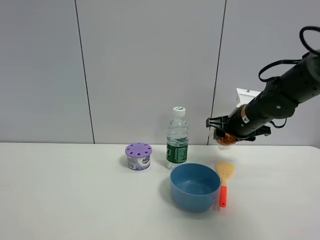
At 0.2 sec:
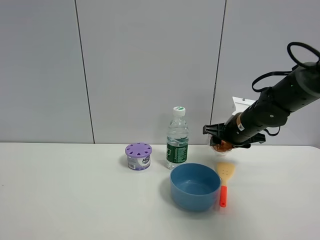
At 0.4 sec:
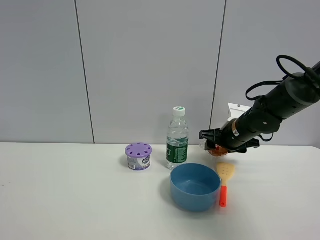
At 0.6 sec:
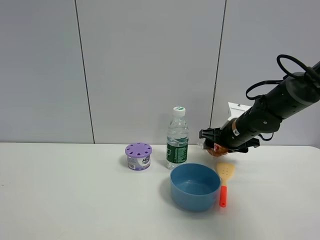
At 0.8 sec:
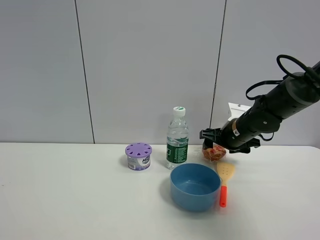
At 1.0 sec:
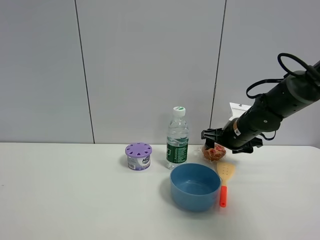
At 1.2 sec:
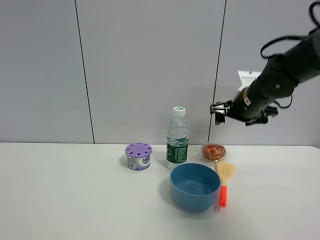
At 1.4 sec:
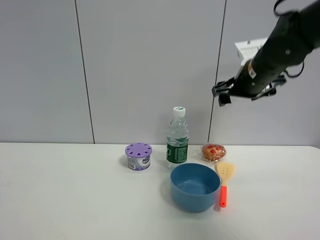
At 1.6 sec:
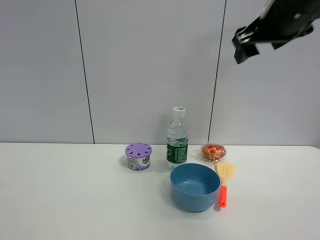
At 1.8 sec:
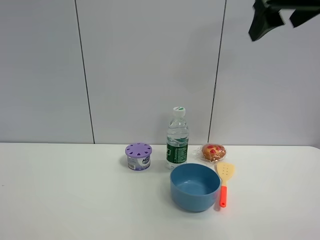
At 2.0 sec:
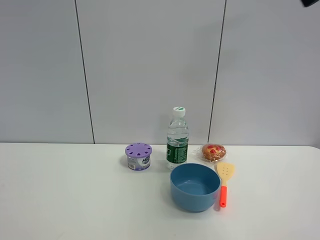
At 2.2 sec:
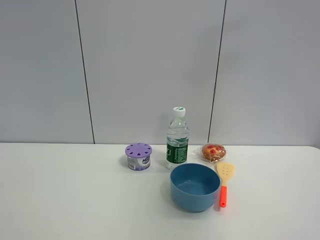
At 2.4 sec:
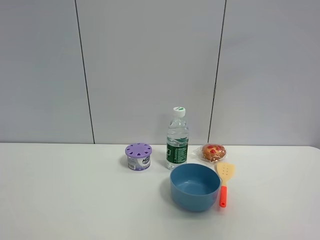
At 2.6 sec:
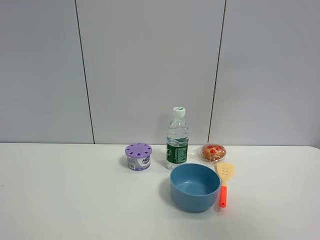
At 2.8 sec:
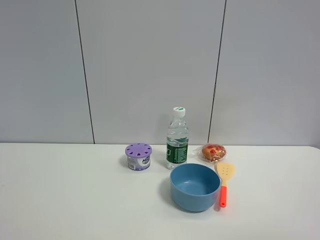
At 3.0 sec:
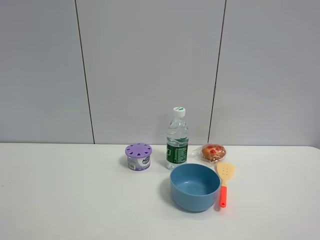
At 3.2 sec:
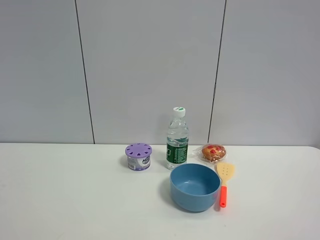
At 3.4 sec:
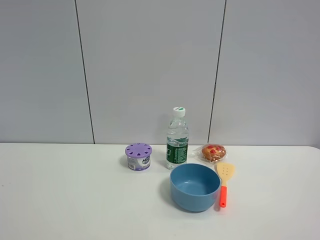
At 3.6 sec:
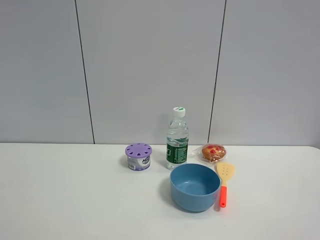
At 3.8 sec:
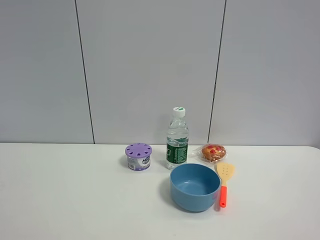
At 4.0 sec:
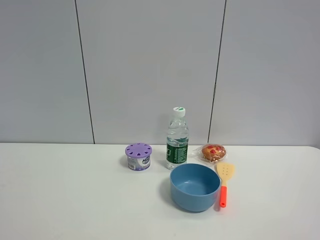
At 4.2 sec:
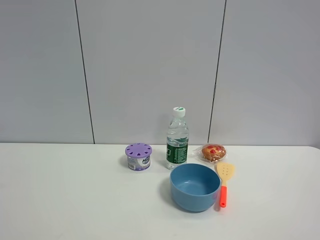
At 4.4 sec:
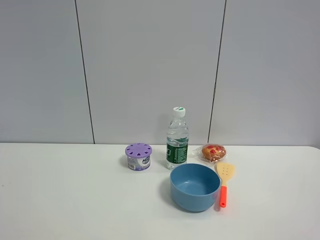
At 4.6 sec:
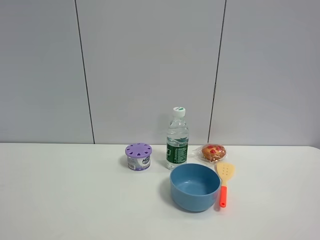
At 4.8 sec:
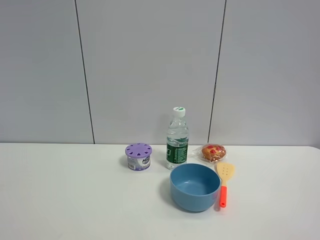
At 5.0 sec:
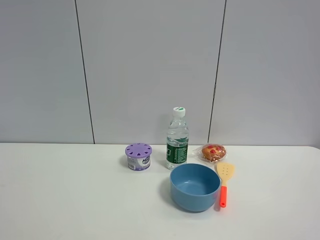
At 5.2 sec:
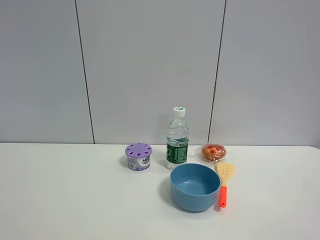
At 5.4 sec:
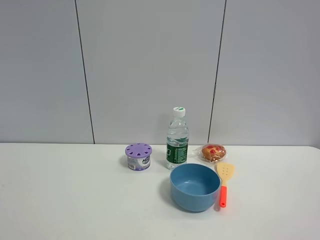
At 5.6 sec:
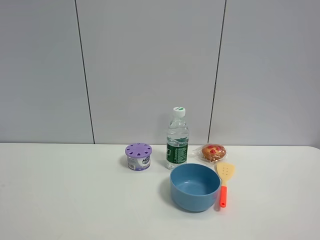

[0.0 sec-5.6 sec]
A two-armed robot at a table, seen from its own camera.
Task of the whole recording: the gripper move the object.
0.0 sec to 1.4 sec: The right gripper travels upward by approximately 10 cm, and opens up.
1.4 sec to 2.8 sec: The right gripper shifts approximately 40 cm backward.
4.2 sec to 5.6 sec: Both grippers stay put.

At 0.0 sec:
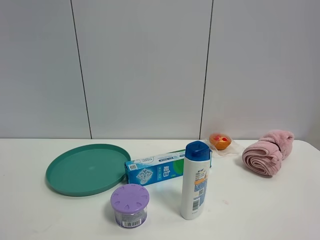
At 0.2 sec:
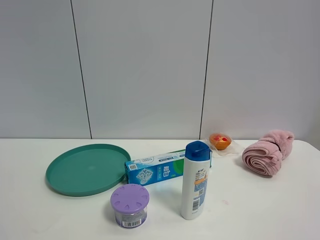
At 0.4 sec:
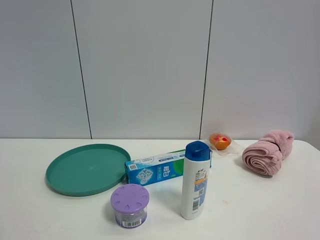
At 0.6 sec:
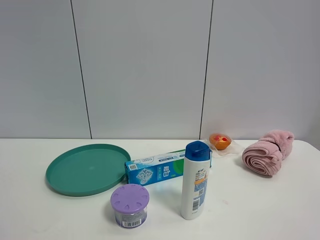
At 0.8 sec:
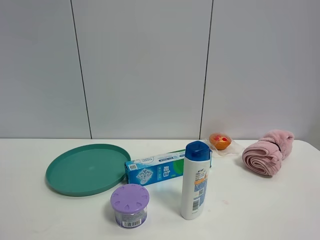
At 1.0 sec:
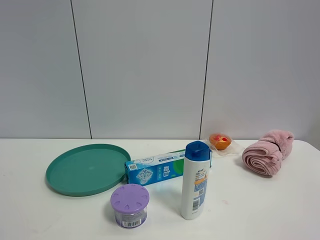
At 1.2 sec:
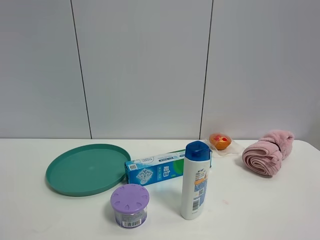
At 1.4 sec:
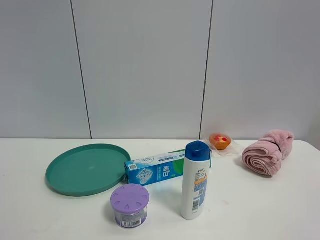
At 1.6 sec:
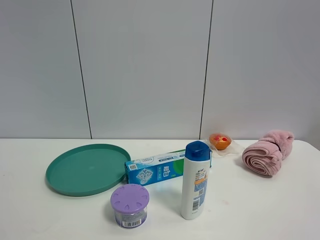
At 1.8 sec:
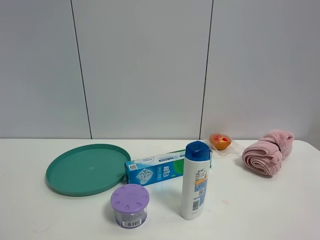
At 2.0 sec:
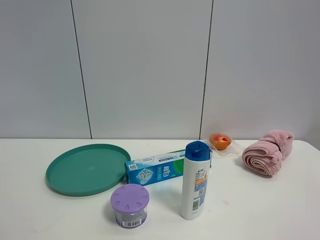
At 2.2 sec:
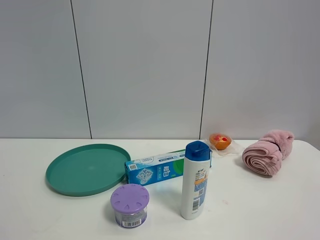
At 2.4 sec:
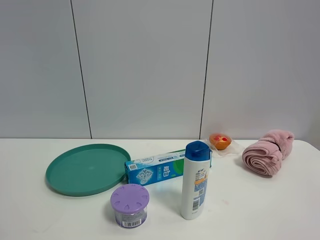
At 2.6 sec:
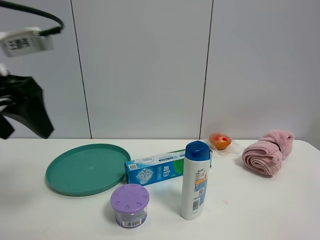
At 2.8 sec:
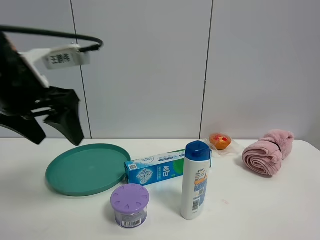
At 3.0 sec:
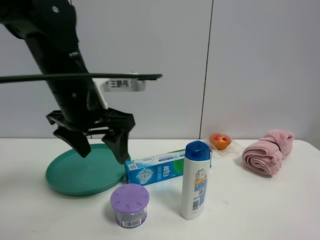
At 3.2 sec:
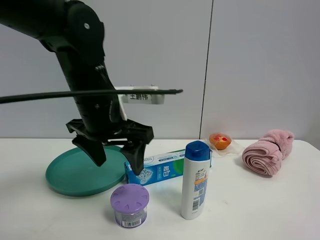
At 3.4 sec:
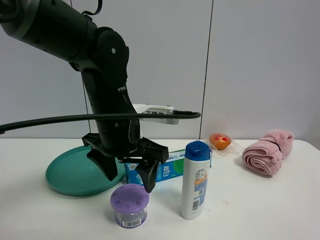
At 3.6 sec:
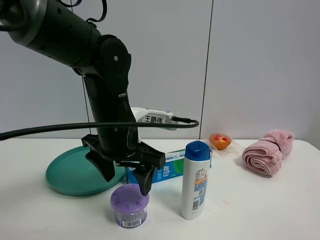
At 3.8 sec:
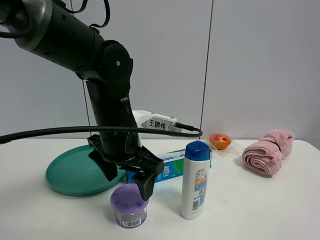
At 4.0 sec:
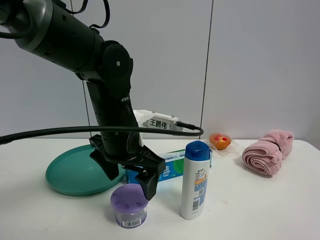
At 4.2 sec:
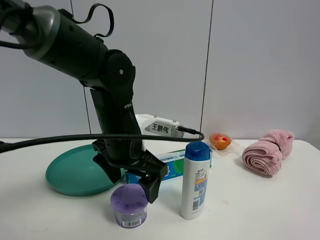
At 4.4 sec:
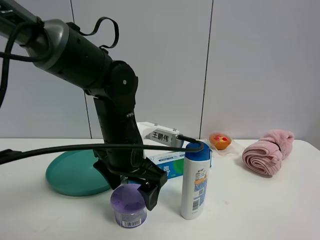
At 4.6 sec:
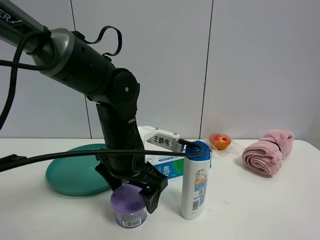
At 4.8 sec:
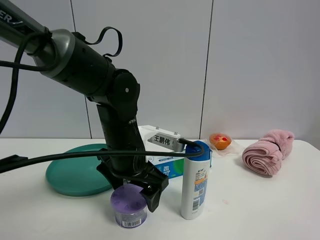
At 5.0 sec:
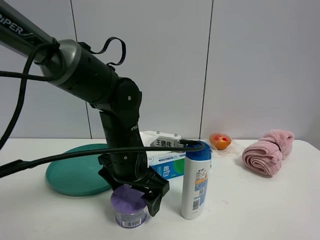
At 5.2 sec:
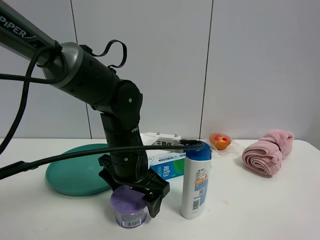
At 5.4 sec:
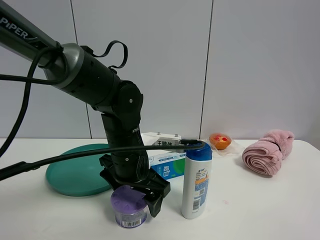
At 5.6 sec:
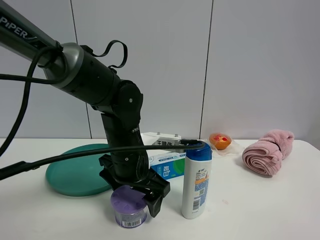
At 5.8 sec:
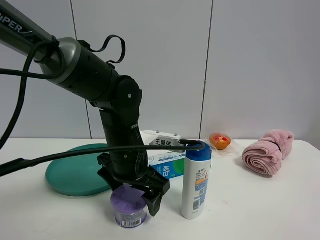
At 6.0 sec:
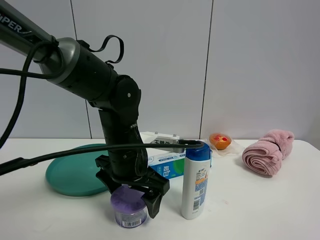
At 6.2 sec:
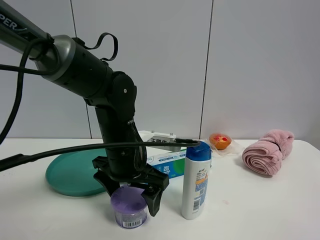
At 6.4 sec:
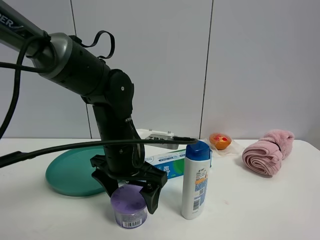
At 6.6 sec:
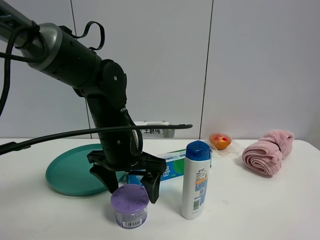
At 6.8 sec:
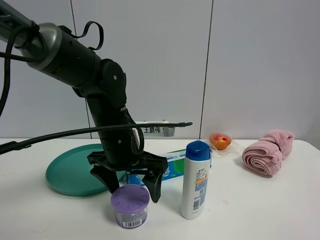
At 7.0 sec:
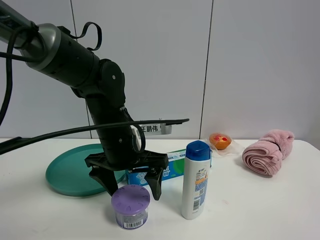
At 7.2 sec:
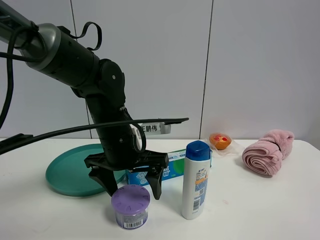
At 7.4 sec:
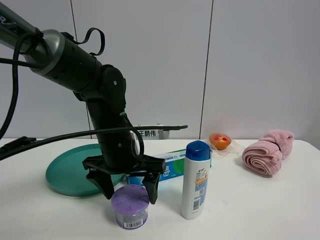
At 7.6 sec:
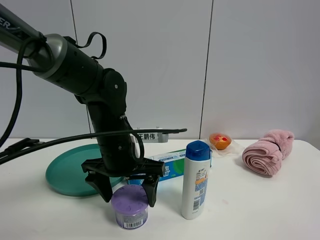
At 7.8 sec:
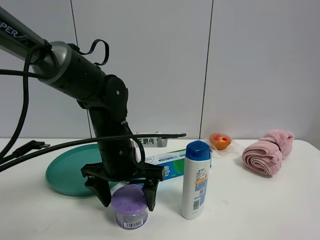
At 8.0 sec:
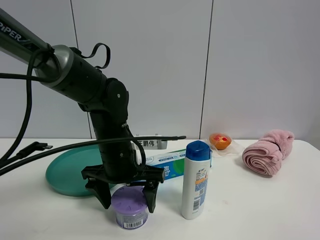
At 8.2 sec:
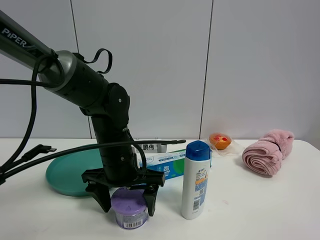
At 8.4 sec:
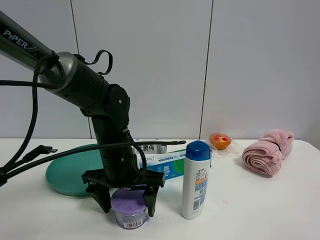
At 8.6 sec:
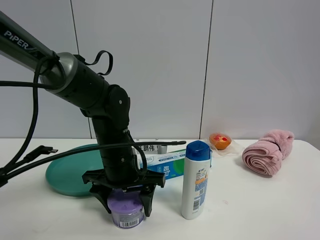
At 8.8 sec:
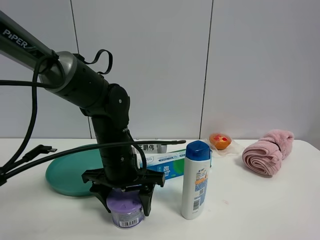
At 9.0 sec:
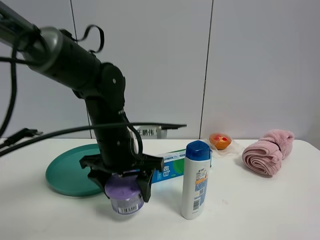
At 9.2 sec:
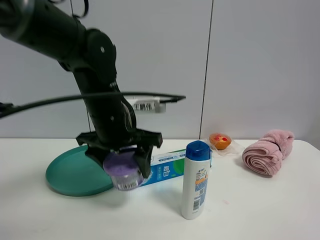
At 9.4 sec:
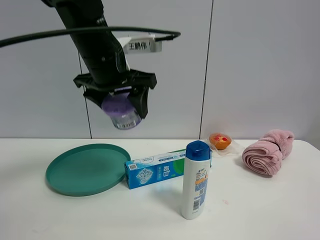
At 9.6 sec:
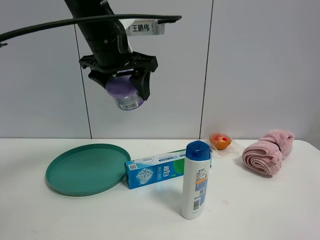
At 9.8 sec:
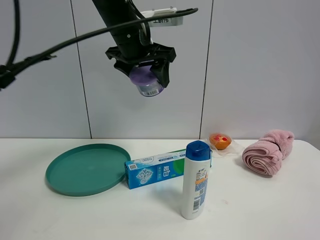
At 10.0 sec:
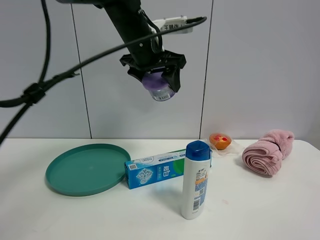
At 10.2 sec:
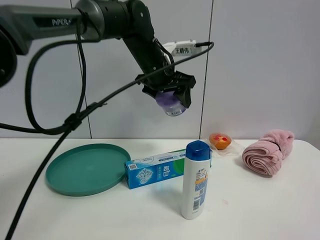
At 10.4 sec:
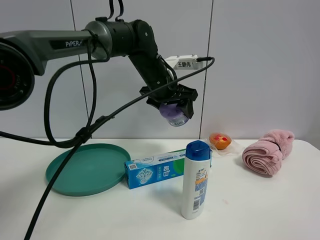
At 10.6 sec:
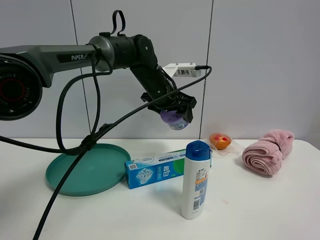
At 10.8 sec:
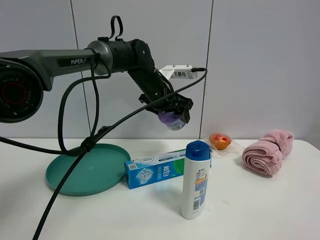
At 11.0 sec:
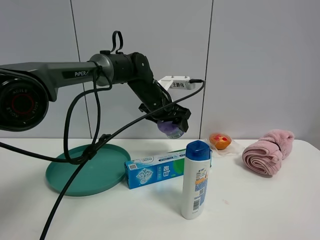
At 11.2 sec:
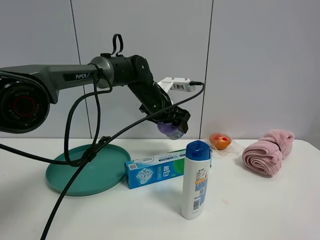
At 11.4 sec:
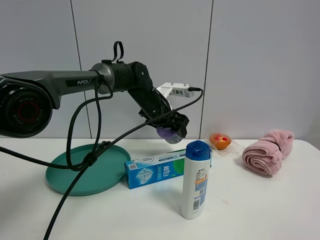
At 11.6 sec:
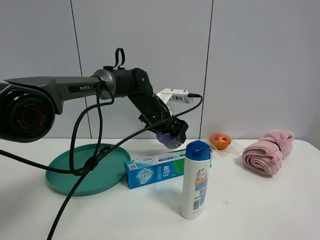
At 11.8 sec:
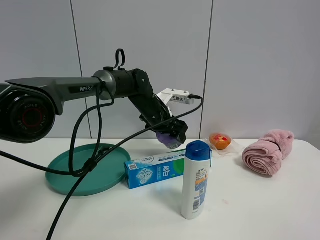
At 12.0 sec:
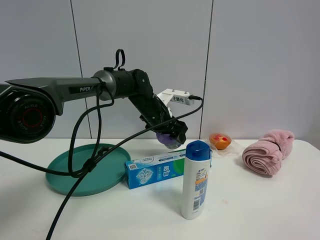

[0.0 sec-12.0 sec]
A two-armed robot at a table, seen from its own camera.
Task of the whole recording: the gripper move the object.
Step, 0.0 sec to 8.6 sec: Grasp the Incense box with the left gripper.
1.6 sec to 3.0 sec: The left gripper goes about 35 cm forward and to the right.
3.0 sec to 4.4 sec: The left gripper goes some 10 cm downward and to the right, and opens.
4.4 sec to 6.0 sec: The grippers make only small movements.
6.0 sec to 7.6 sec: The grippers stay close to where they were, moving slightly.
7.6 sec to 9.0 sec: The left gripper closes.
9.0 sec to 10.4 sec: The left gripper shifts roughly 20 cm forward, upward and to the right.
10.4 sec to 12.0 sec: The left gripper goes approximately 10 cm downward.

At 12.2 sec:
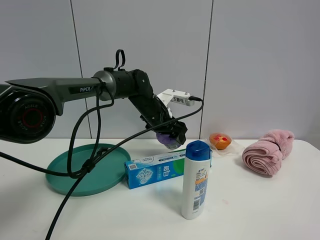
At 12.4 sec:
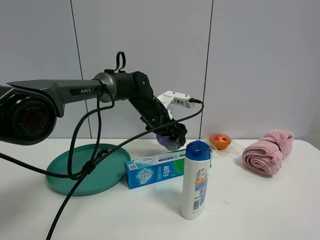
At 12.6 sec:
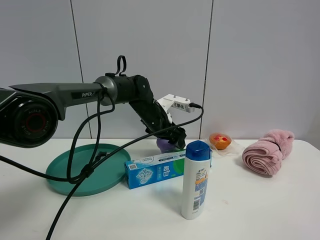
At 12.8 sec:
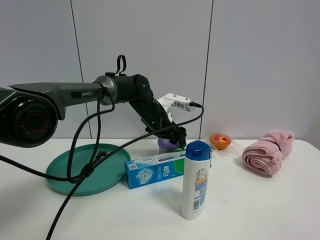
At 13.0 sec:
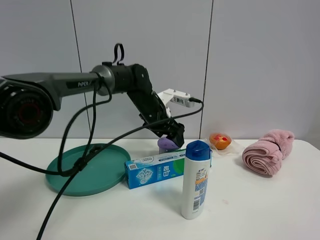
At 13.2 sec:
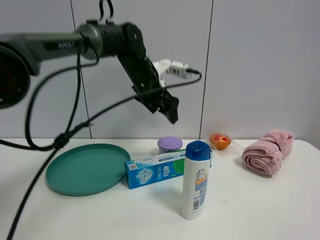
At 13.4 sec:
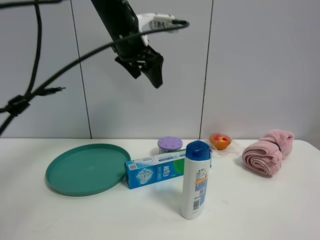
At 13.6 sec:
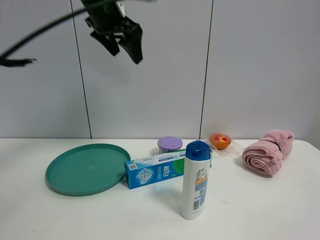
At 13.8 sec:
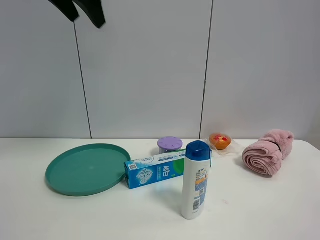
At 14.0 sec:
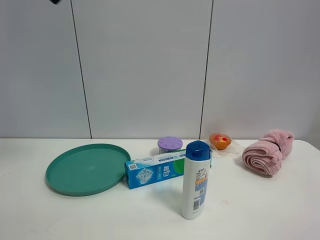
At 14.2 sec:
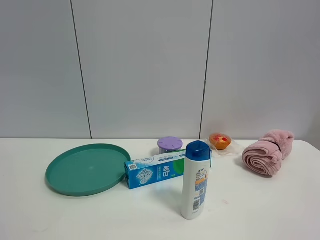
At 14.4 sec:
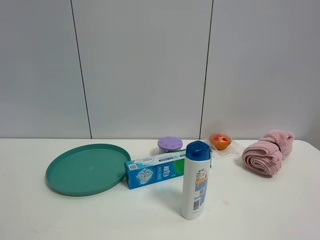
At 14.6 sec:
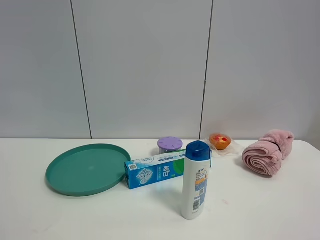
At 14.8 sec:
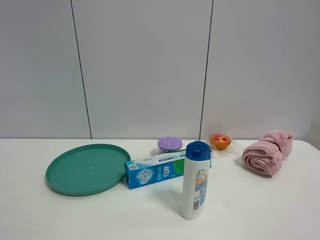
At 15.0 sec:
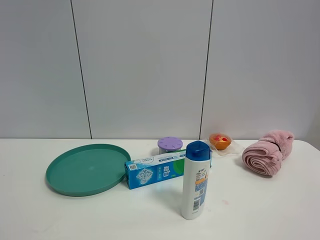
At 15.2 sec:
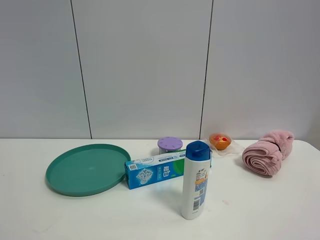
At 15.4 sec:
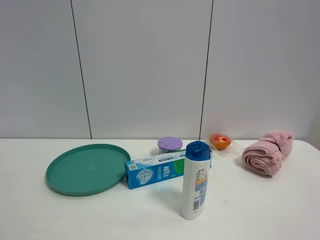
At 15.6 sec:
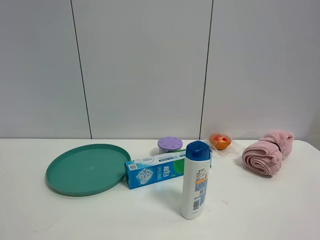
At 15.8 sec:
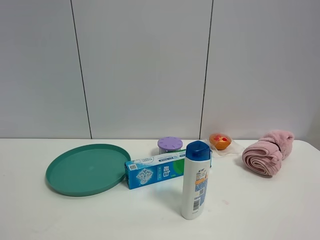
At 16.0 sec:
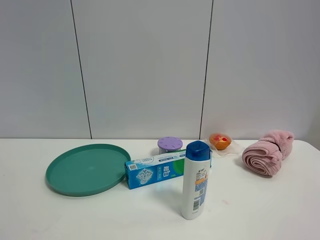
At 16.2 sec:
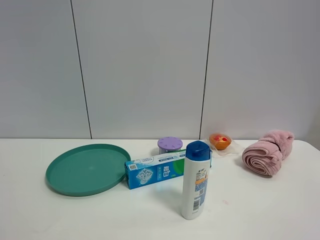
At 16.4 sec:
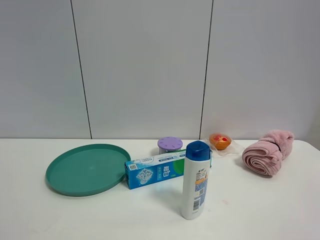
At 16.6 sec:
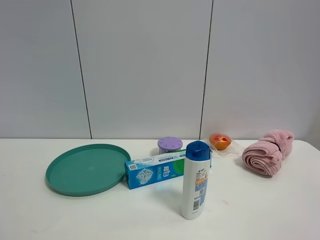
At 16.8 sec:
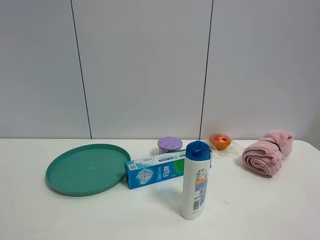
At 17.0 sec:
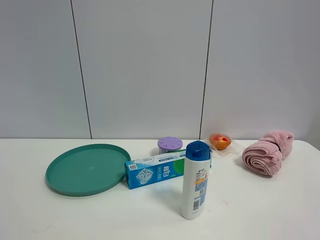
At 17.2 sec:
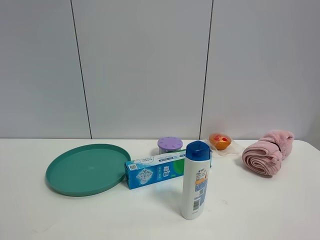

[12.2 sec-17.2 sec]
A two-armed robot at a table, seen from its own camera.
Task of the whole recording: the gripper move the object.
12.2 sec to 13.8 sec: The left gripper travels upward, to the left and backward by approximately 40 cm.
13.8 sec to 15.6 sec: The left gripper moves backward and downward, some 40 cm.
